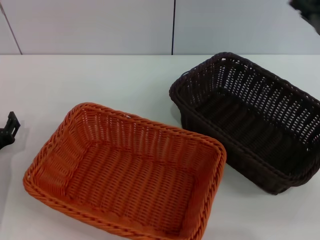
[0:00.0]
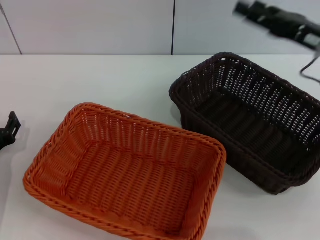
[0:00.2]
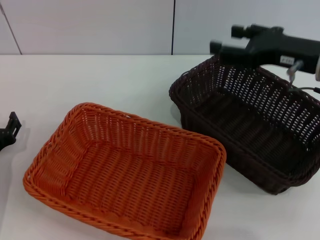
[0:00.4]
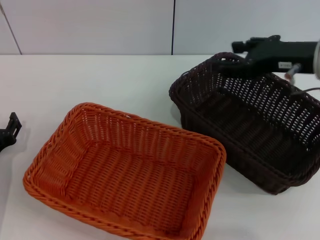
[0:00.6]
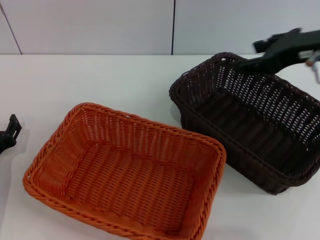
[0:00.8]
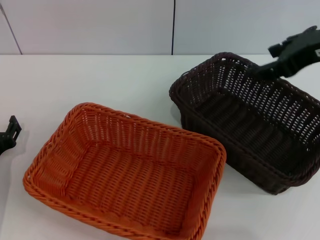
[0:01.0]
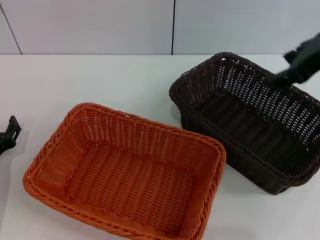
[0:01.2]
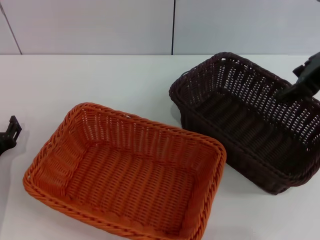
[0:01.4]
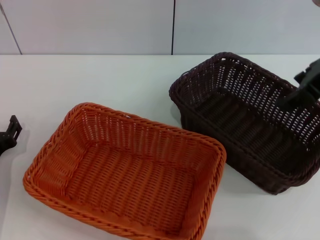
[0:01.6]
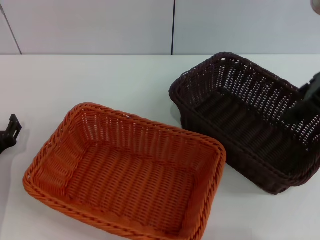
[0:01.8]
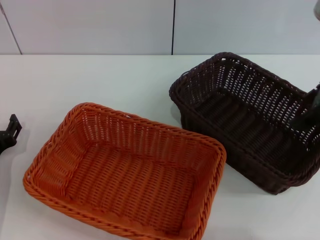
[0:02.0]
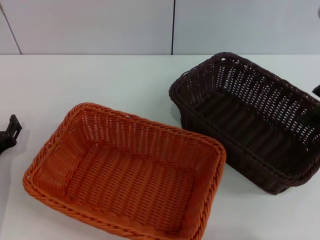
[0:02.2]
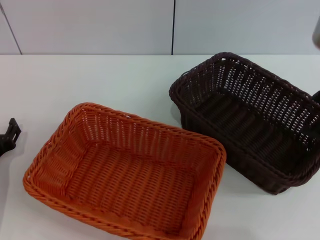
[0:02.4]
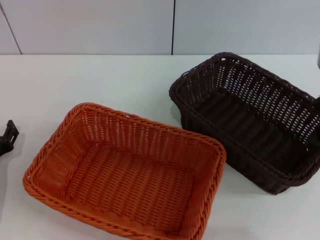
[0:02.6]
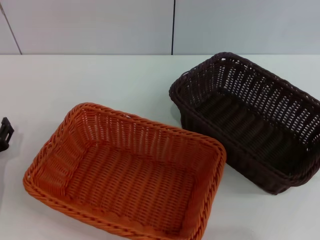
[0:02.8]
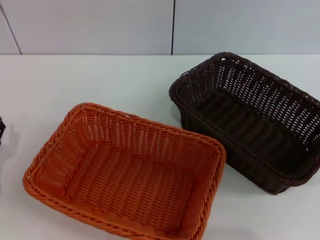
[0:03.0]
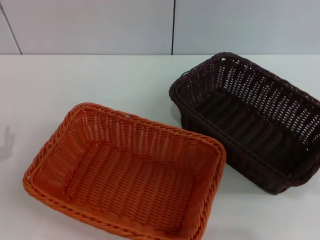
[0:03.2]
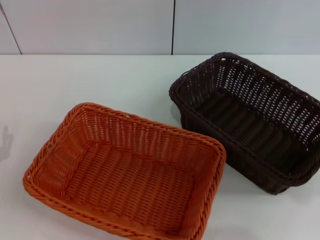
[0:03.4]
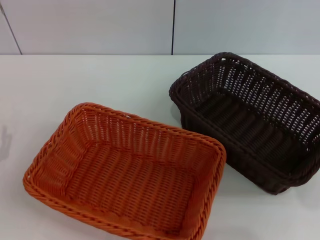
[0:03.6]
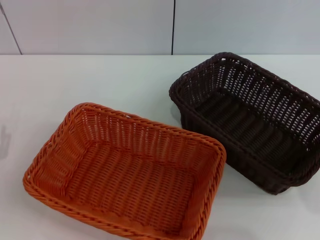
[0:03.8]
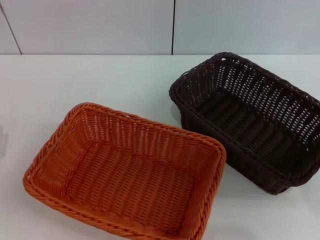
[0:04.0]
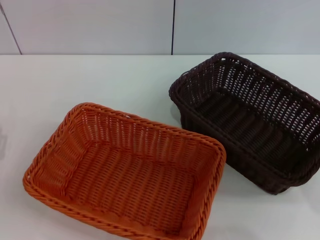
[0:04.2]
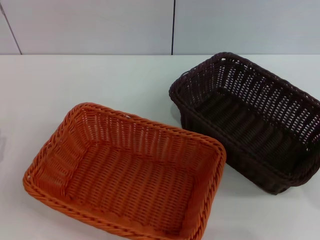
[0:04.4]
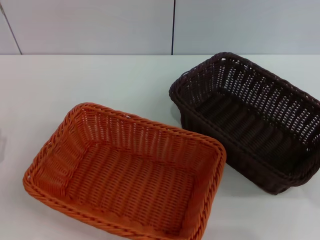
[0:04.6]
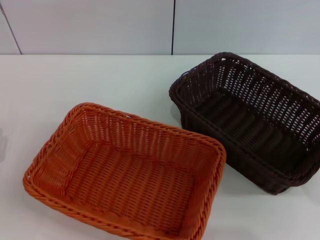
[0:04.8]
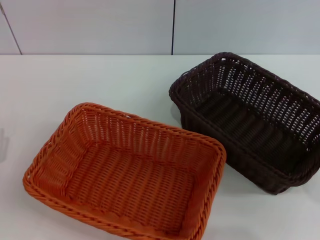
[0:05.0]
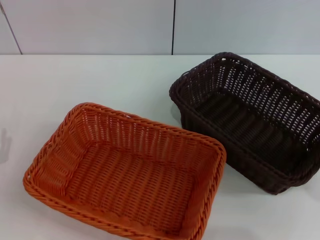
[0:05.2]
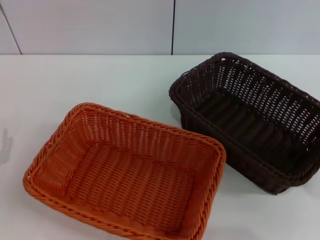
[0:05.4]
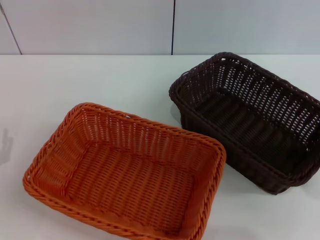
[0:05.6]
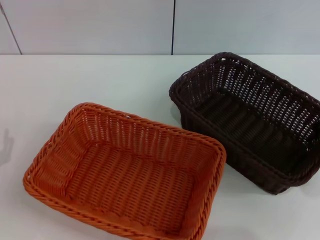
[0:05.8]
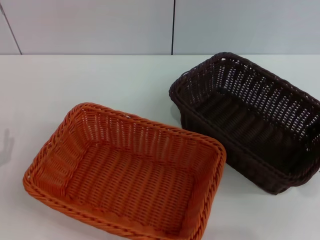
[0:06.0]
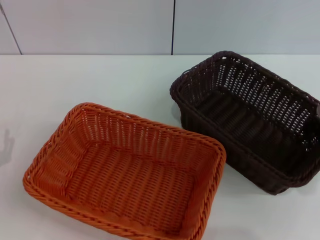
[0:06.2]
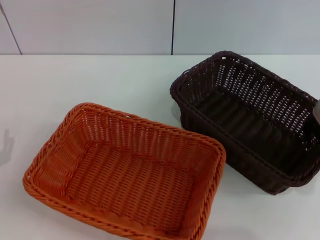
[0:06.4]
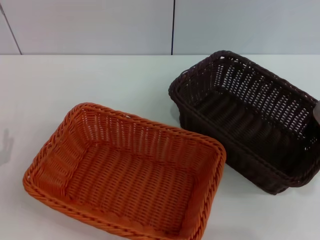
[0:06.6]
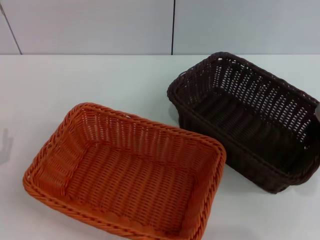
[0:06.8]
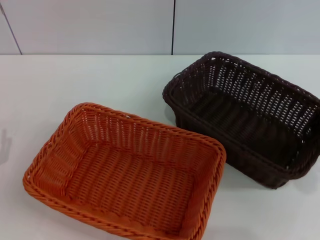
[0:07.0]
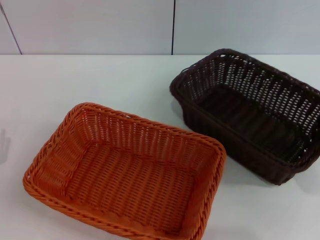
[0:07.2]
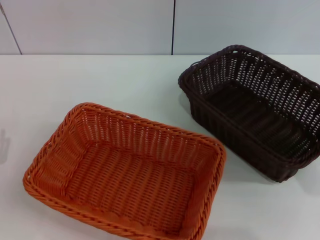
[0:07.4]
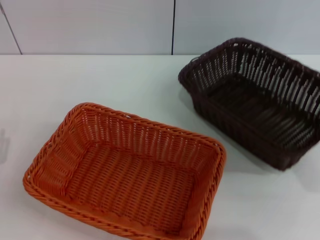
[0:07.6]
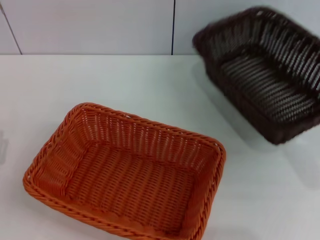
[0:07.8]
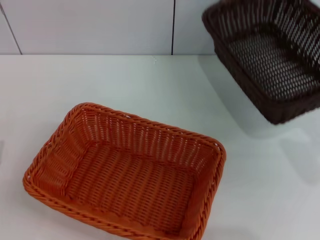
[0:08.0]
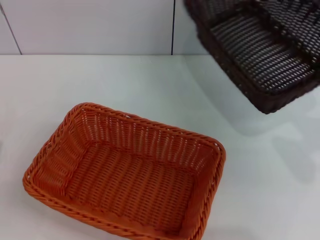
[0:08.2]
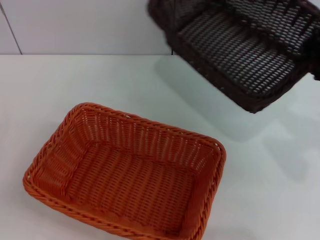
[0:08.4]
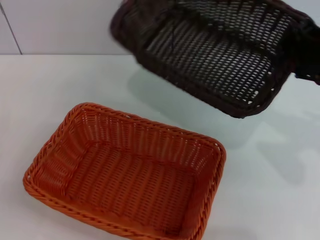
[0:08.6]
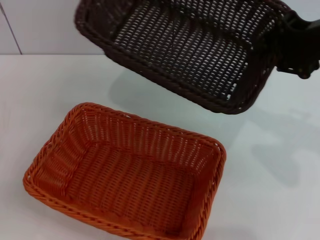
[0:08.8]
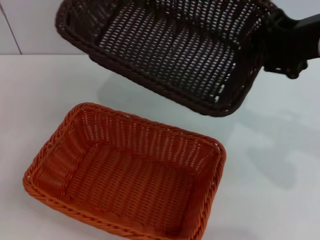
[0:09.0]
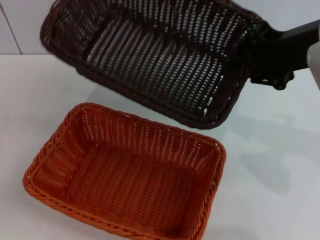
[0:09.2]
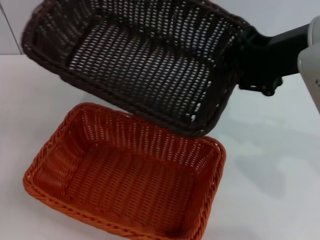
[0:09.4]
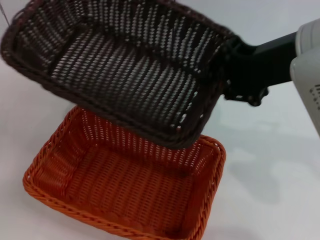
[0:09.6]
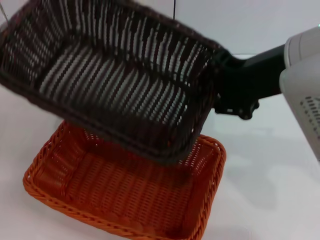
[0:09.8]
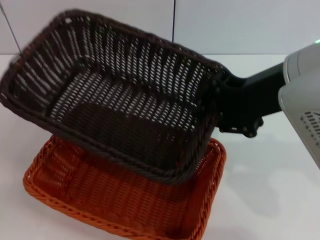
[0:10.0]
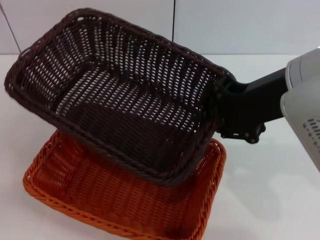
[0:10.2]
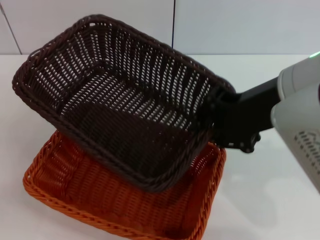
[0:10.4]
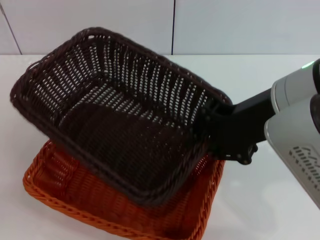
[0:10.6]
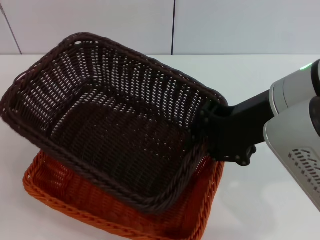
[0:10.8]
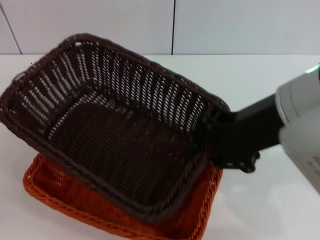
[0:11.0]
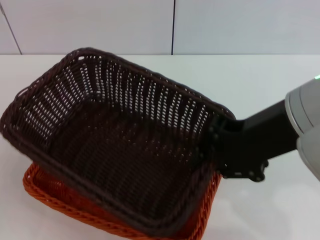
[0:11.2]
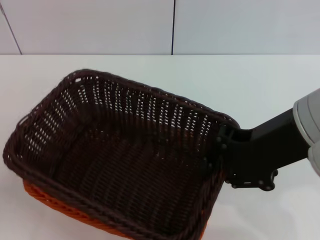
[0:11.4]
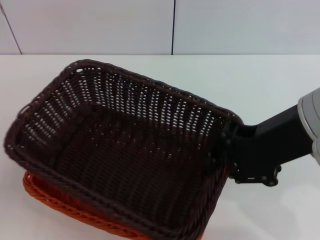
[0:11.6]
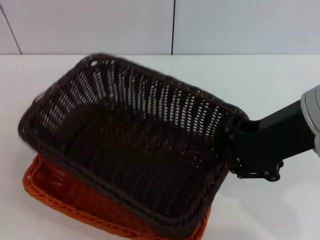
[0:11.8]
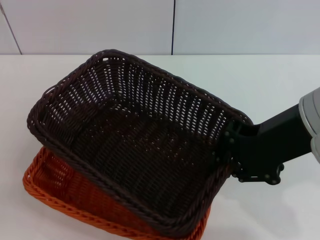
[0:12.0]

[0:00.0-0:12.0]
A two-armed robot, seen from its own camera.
Step, 0:00.0 to 0:07.8: Pick up the dark basket with the right gripper.
0:00.0 to 0:01.6: The right gripper moves upward and to the left, about 15 cm.
0:01.6 to 0:03.0: The right gripper moves backward, about 5 cm.
0:06.0 to 0:07.6: The right gripper closes.
0:07.6 to 0:09.0: The right gripper is displaced to the left and upward by roughly 10 cm.
0:09.0 to 0:10.4: The right gripper moves to the left, roughly 5 cm.

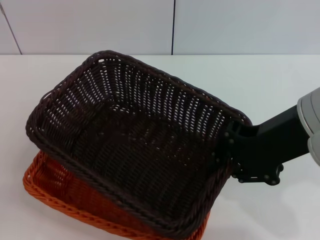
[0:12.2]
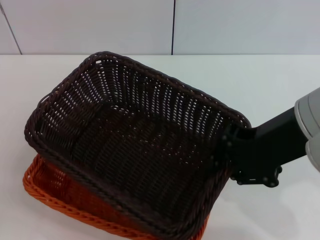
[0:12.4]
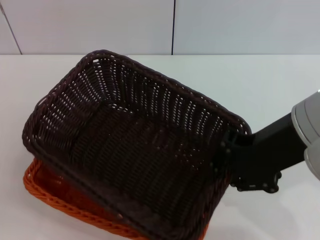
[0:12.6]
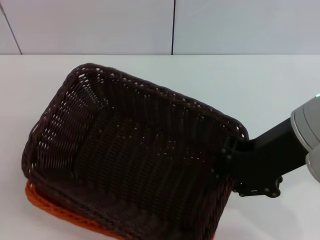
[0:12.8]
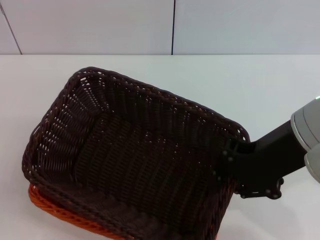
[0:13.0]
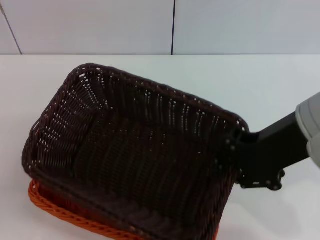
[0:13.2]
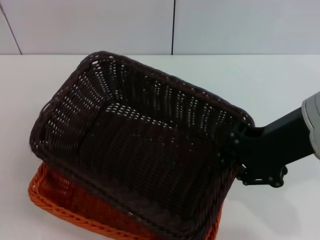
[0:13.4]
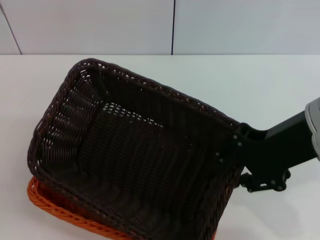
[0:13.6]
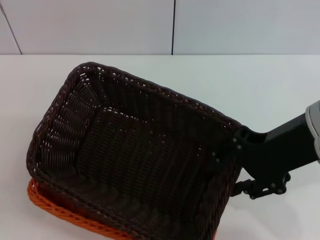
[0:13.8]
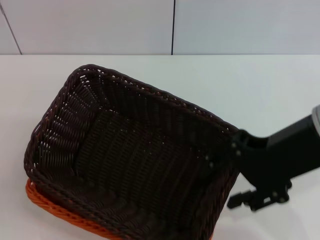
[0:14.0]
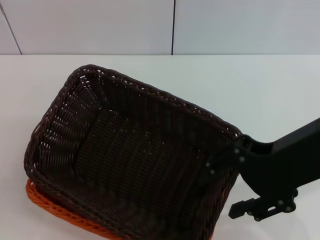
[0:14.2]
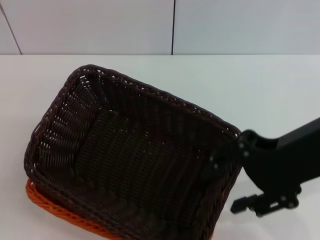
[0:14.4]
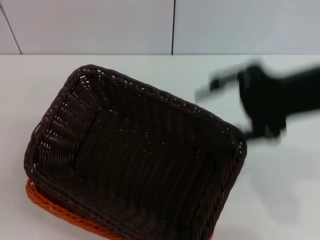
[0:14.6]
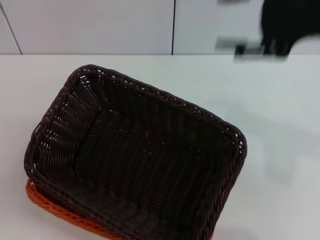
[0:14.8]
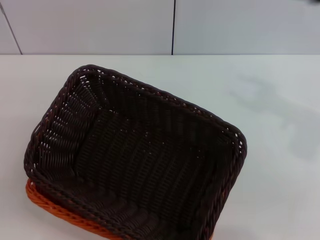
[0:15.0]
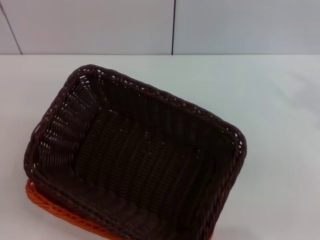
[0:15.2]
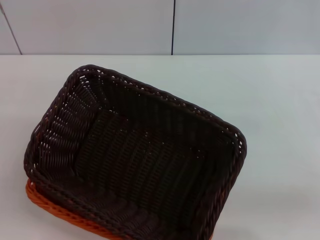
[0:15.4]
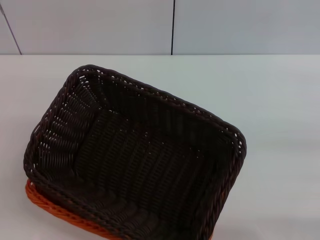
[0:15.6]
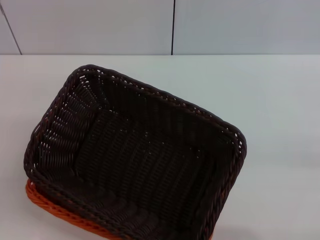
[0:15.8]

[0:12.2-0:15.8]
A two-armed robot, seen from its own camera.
Step, 0:12.2 to 0:14.2: Place the dark basket on the light basket with the right gripper.
0:12.2 to 0:14.0: The right gripper opens its fingers.
0:14.0 to 0:15.8: The right gripper is displaced to the right and downward by some 30 cm.
